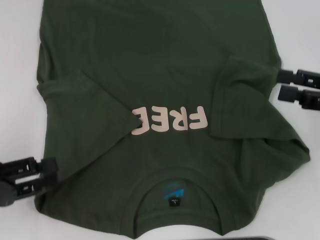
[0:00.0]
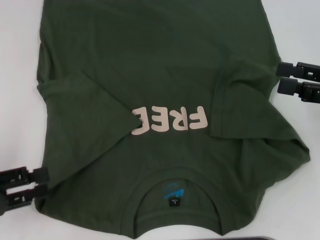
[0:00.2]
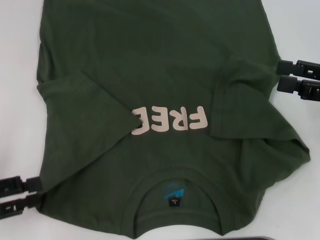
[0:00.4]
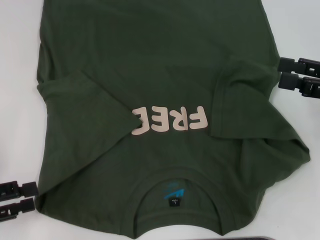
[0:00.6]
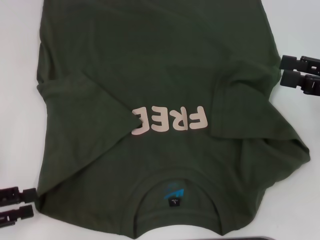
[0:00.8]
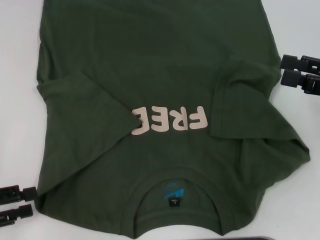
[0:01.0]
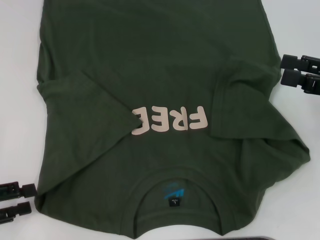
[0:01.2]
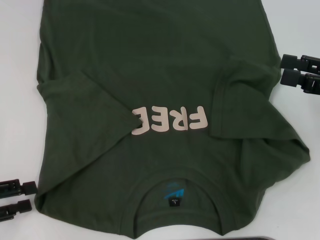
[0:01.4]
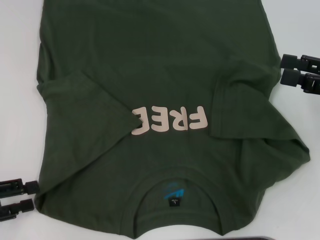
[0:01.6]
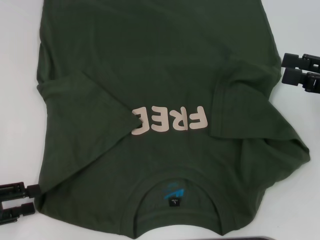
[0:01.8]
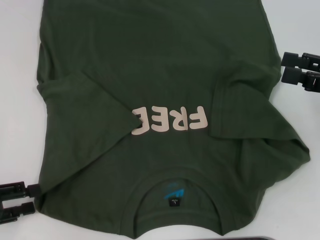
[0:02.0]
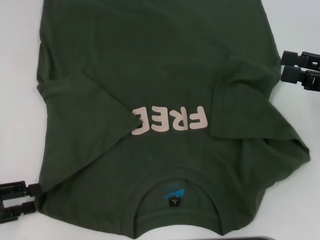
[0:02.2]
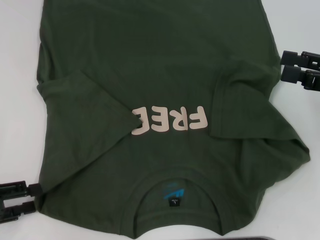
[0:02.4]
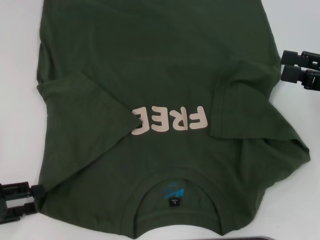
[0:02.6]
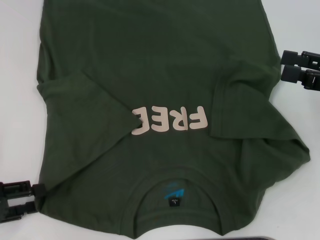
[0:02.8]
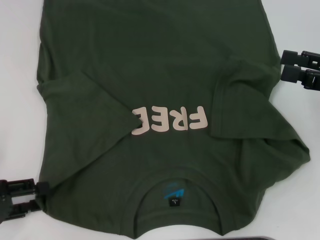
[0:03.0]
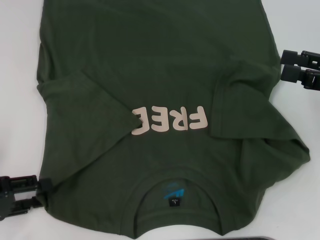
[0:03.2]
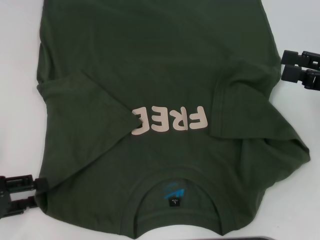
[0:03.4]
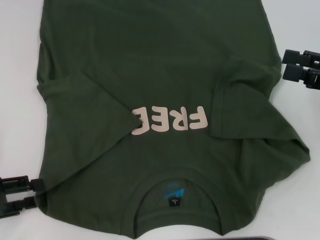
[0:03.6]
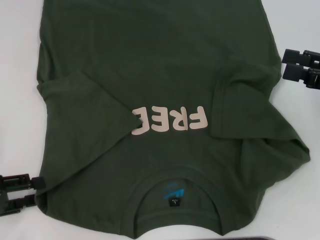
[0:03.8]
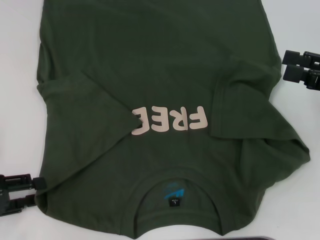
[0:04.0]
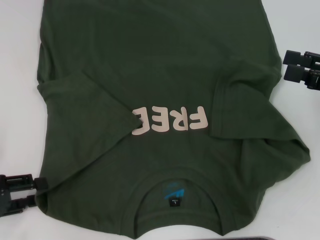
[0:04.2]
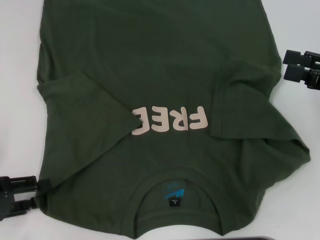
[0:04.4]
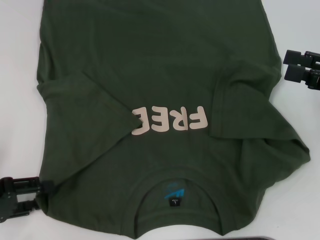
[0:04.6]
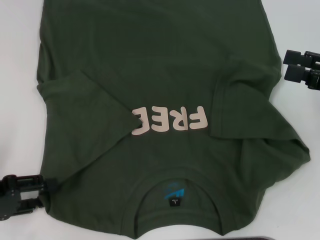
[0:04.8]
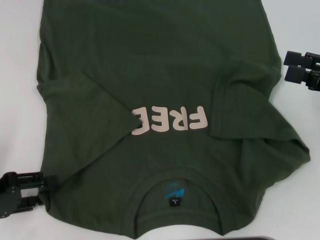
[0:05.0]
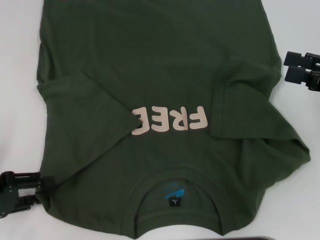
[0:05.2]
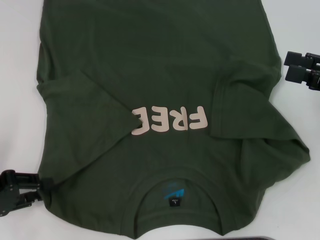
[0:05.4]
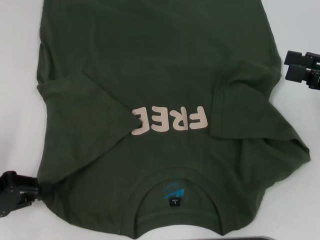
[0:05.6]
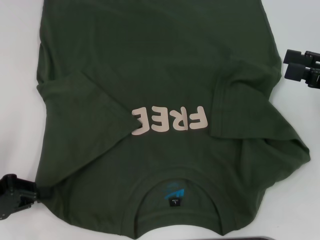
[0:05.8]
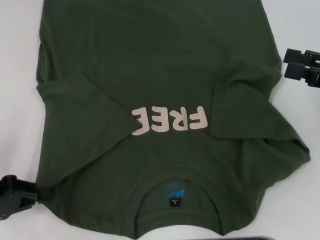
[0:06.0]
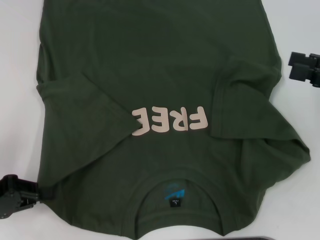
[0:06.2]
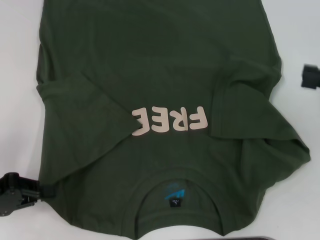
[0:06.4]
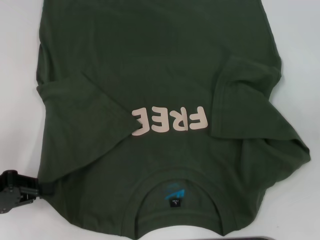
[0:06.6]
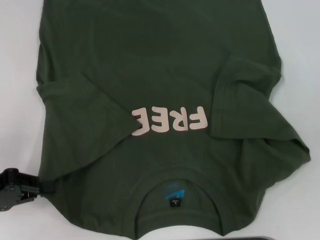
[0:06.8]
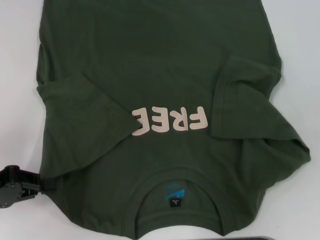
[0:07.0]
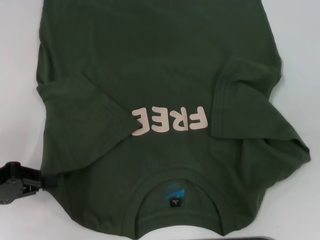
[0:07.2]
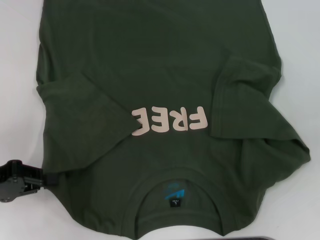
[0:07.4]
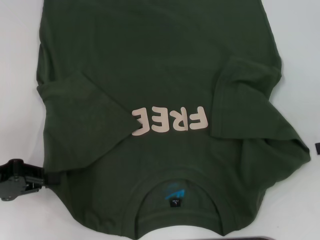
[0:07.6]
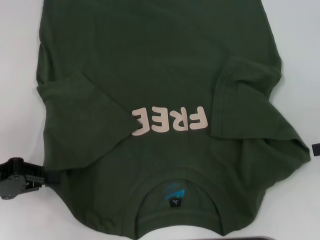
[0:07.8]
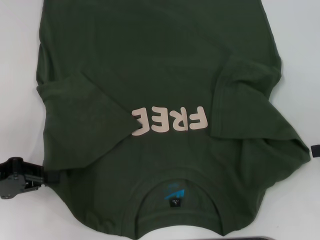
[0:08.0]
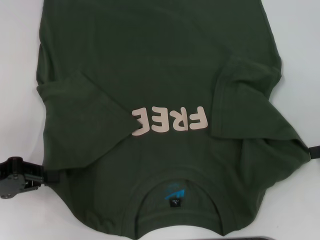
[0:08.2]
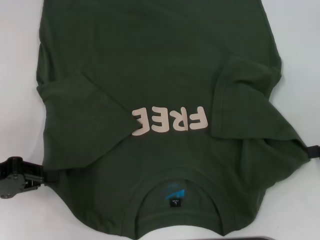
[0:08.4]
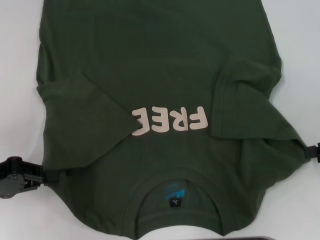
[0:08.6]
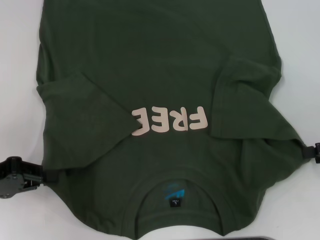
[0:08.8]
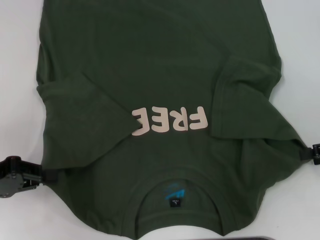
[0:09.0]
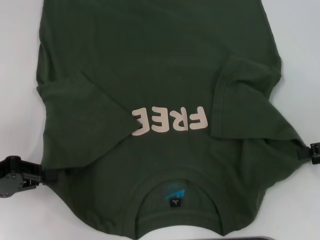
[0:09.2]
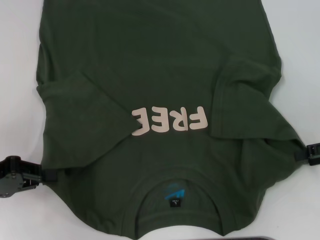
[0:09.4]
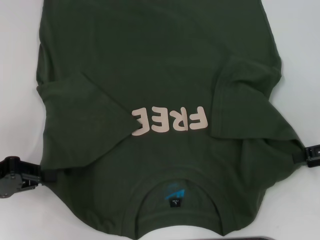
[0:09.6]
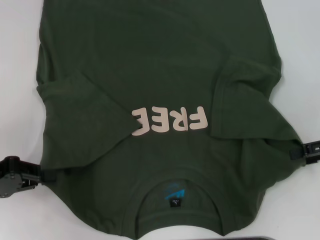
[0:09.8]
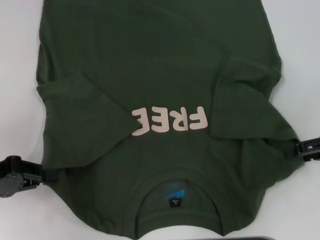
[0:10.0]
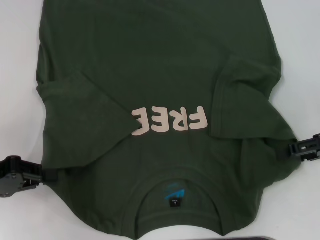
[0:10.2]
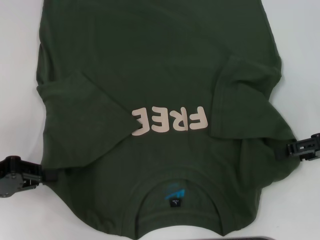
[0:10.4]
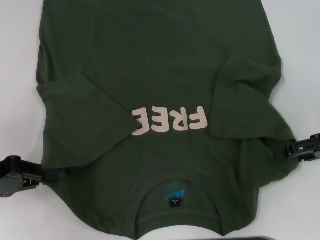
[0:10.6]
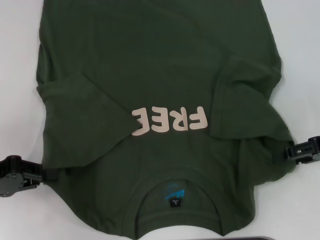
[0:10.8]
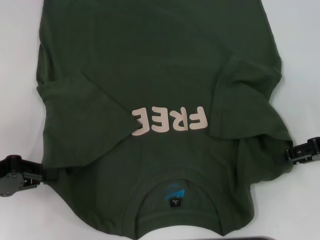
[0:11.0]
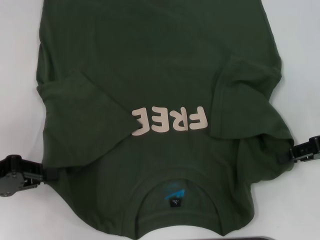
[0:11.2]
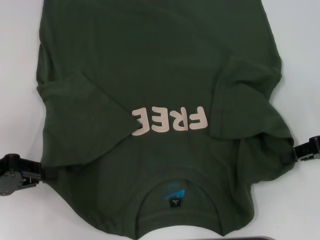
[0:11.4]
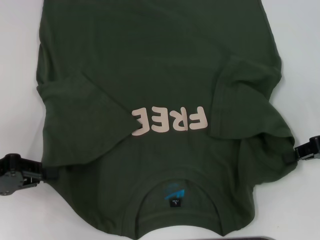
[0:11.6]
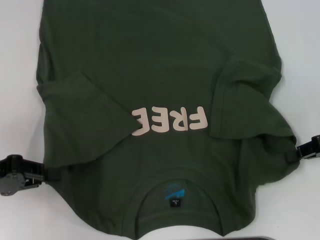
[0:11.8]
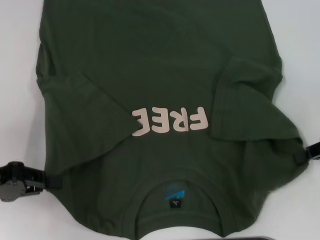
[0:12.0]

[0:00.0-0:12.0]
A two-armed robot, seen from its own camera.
Step, 0:00.0 to 0:06.0: Grab the bottom left corner with your left hand.
0:00.0 to 0:01.6: The grippers make only small movements.
0:01.6 to 0:03.0: The grippers stay close to where they were, moving slightly.
0:03.0 to 0:04.4: Both grippers stay put.
0:04.4 to 0:06.0: The left gripper closes its fingers.
0:06.0 to 0:07.6: The right gripper goes some 5 cm to the right.
0:07.6 to 0:10.4: There are only small adjustments of the grippers.
0:10.4 to 0:12.0: The right gripper closes its fingers.

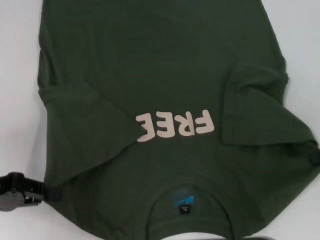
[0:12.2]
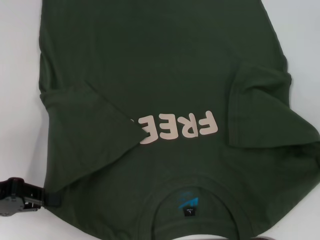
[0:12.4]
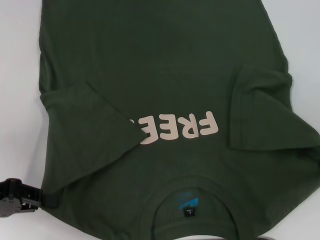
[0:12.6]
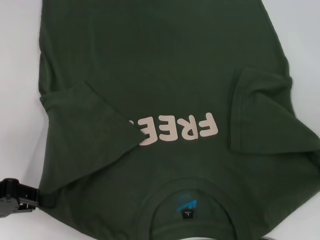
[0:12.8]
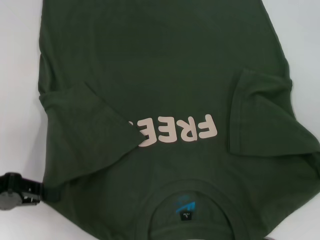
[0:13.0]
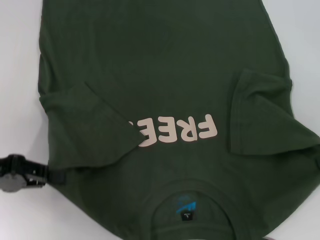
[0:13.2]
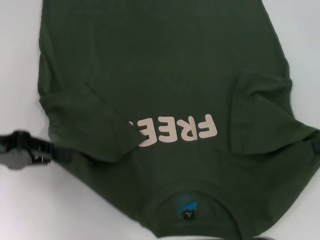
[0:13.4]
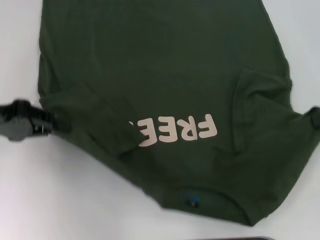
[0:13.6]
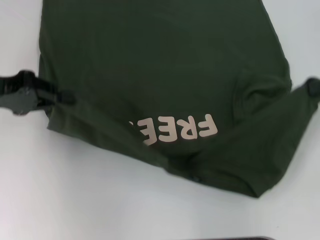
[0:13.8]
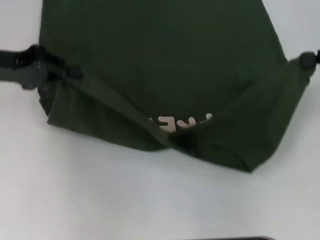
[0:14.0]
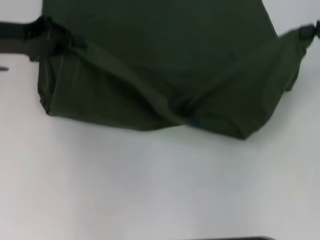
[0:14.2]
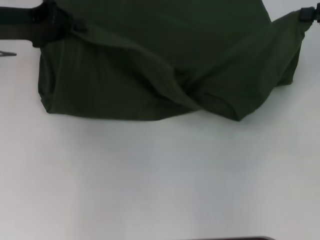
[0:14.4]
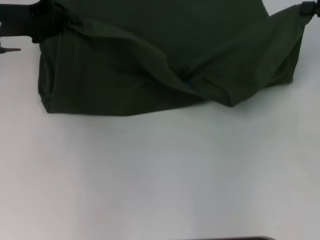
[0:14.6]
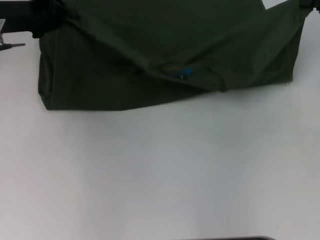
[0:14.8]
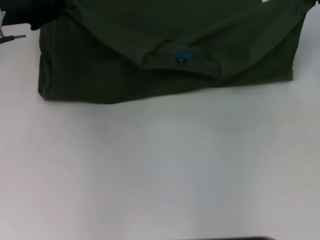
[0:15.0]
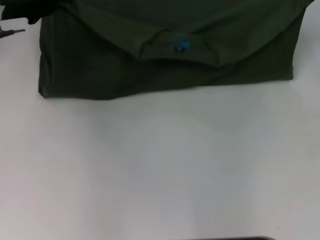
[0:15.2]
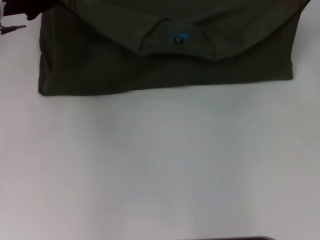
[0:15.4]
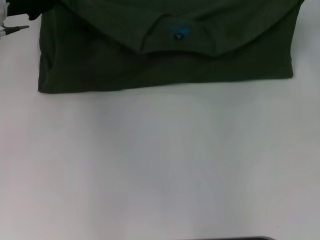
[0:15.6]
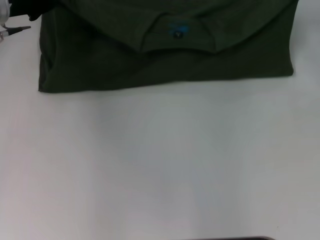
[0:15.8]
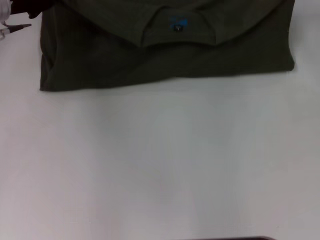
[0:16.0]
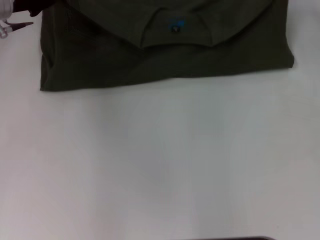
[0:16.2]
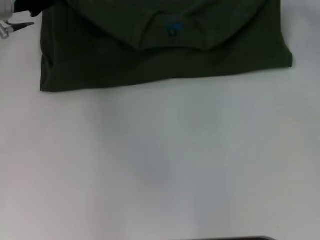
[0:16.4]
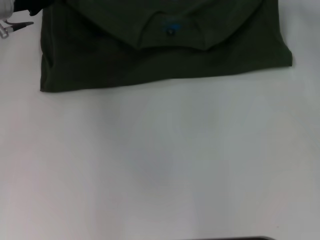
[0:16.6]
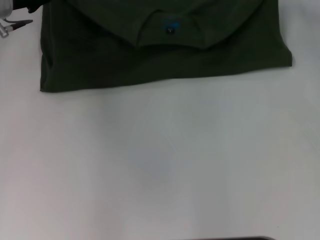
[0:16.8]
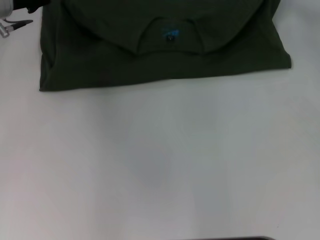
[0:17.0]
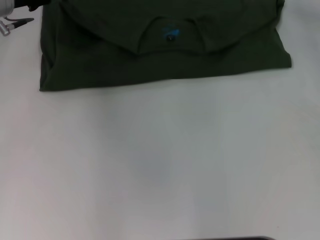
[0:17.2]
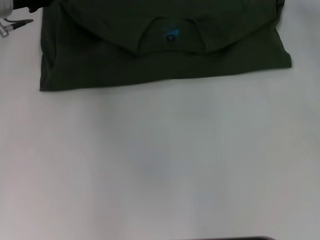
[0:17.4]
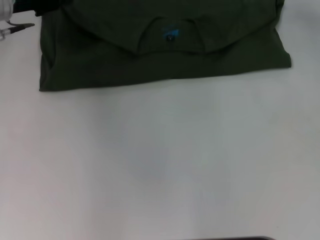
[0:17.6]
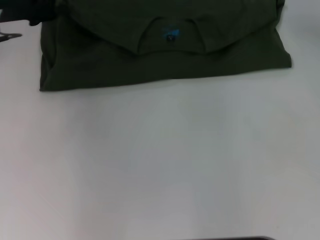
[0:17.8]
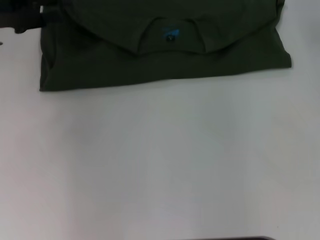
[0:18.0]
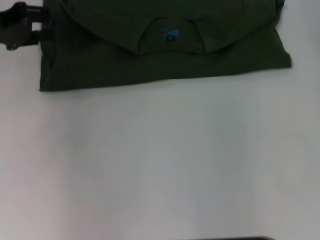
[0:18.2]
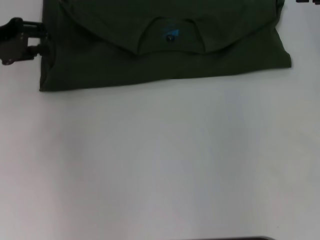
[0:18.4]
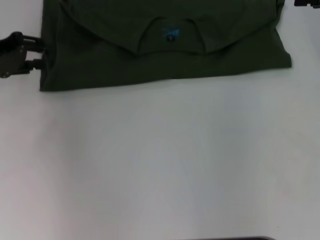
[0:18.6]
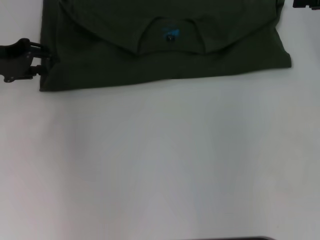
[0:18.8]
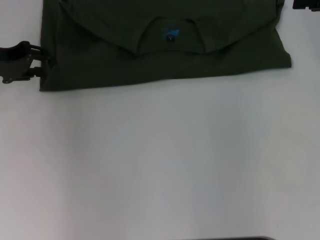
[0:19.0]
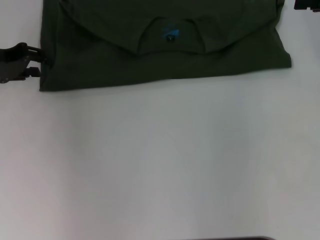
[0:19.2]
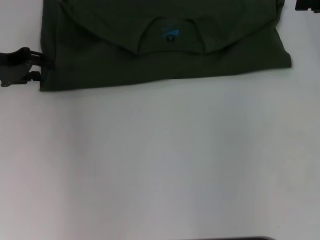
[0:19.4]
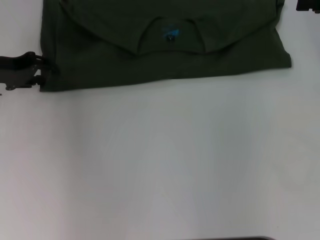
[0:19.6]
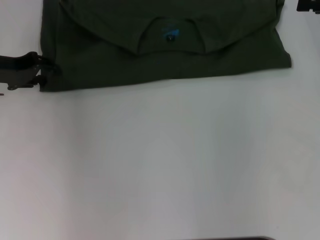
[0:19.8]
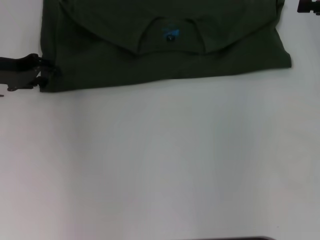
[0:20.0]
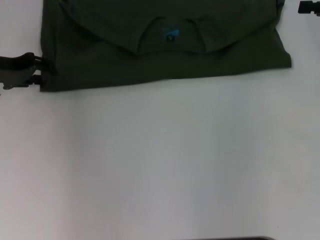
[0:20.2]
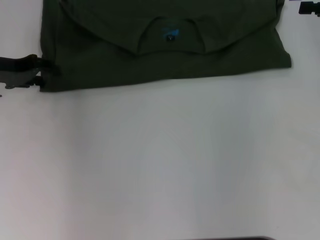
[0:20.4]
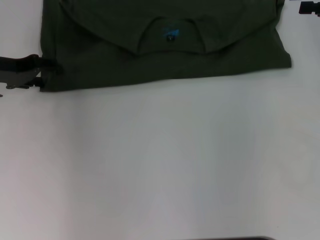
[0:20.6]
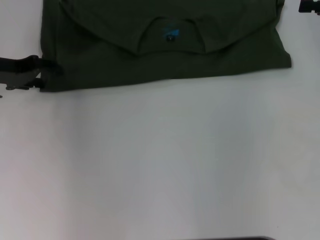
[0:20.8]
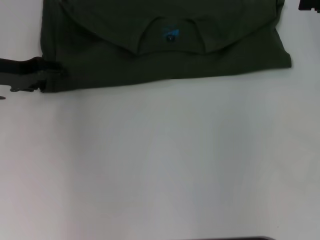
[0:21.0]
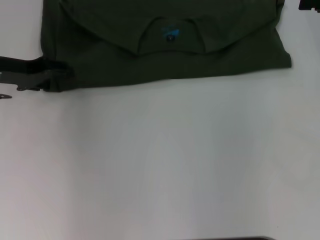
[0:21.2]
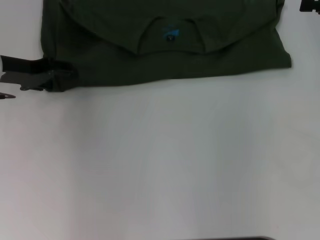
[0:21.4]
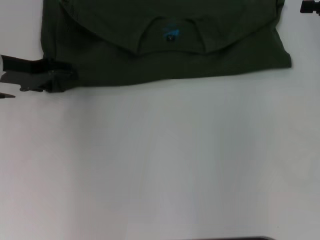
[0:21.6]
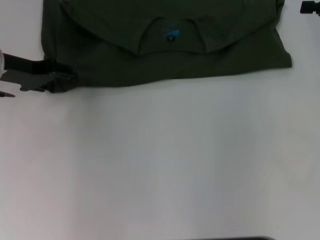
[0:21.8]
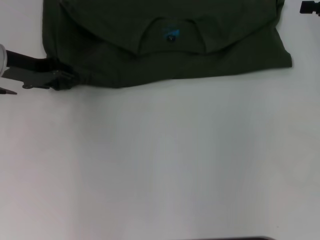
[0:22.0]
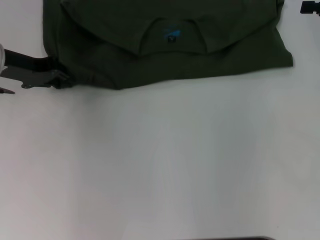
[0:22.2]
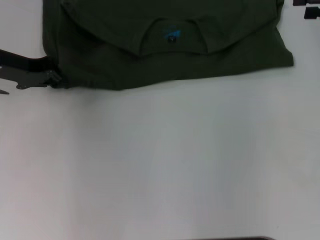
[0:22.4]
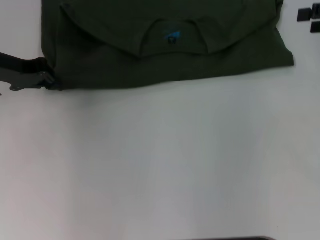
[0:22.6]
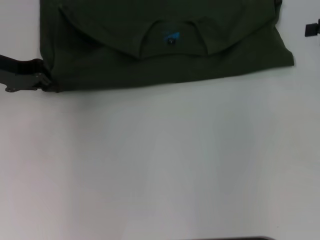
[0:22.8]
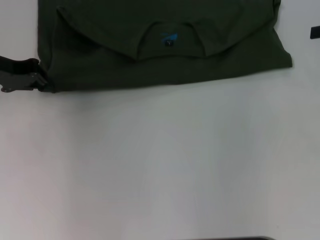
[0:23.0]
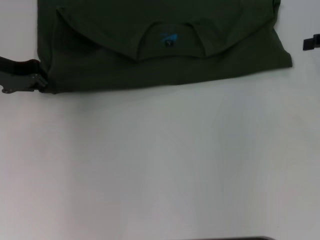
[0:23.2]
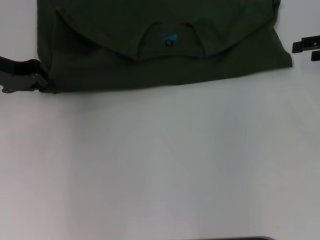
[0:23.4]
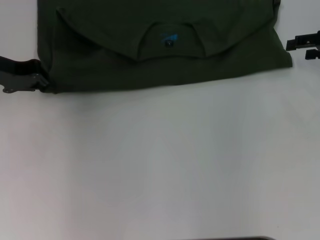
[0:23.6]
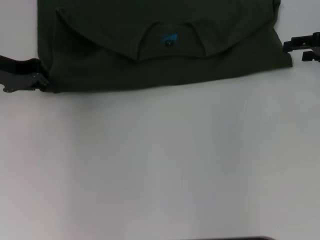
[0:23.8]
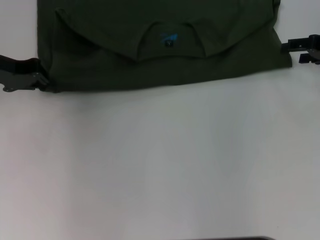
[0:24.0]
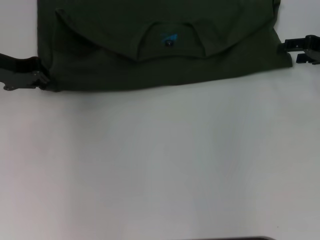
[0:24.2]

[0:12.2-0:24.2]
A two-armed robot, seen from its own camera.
Step, 0:12.4 to 0:18.0: Fold the clothes with your left hand.
Step, 0:12.4 to 0:18.0: Fold the clothes with your right hand.
0:12.2 to 0:13.8: The right gripper shifts approximately 10 cm upward and forward. Meanwhile the left gripper is displaced forward and upward by about 10 cm.
0:13.8 to 0:15.2: The right gripper shifts some 5 cm forward. Meanwhile the left gripper shifts approximately 10 cm forward.
0:15.2 to 0:16.6: The right gripper heads to the left and forward, covering about 10 cm.
0:16.6 to 0:18.2: The left gripper moves backward and to the left, approximately 10 cm, and opens its fingers, while the right gripper is displaced backward by about 5 cm, and opens its fingers.
0:18.2 to 0:19.8: The left gripper shifts roughly 5 cm downward.
0:21.2 to 0:22.6: The left gripper closes up.
0:22.6 to 0:24.2: The right gripper is displaced downward by about 5 cm.
